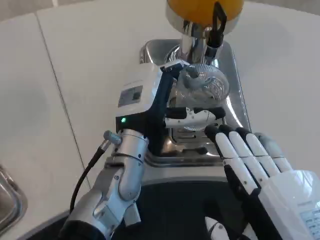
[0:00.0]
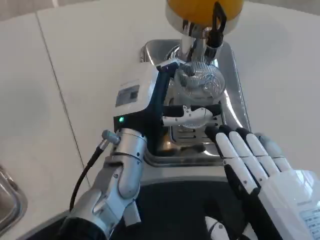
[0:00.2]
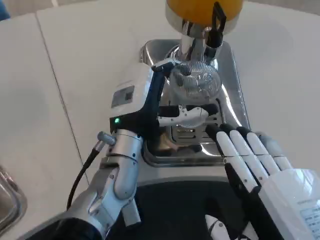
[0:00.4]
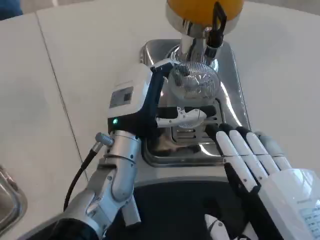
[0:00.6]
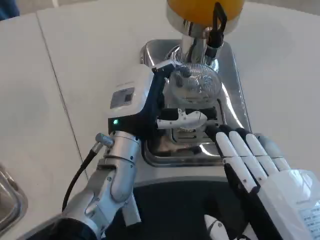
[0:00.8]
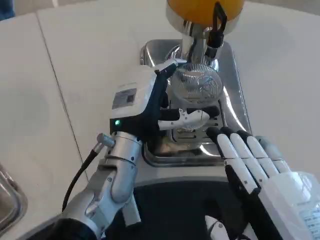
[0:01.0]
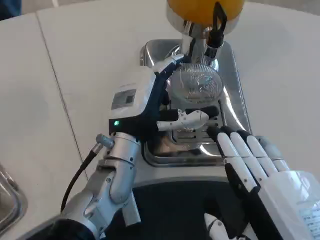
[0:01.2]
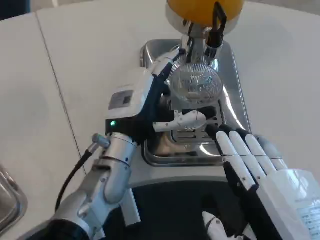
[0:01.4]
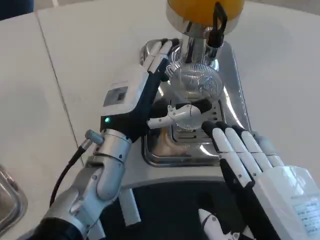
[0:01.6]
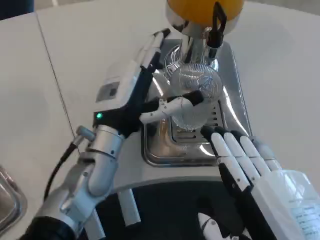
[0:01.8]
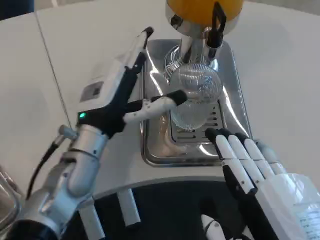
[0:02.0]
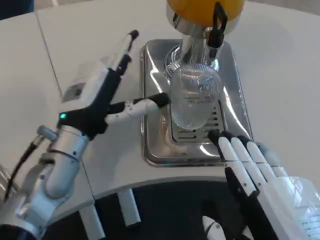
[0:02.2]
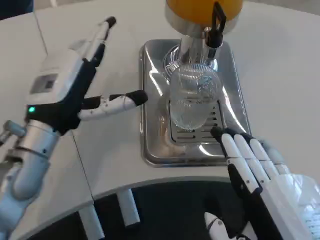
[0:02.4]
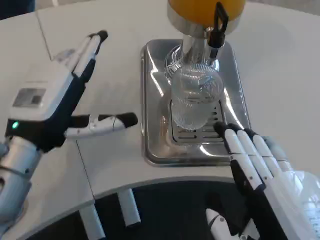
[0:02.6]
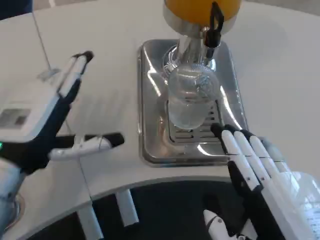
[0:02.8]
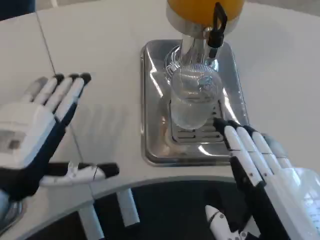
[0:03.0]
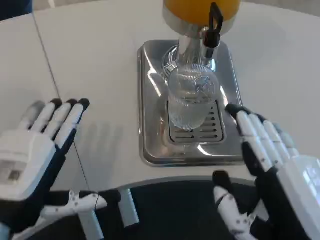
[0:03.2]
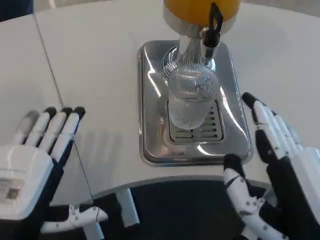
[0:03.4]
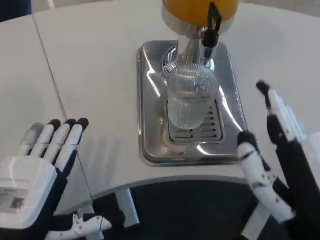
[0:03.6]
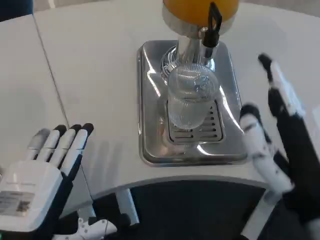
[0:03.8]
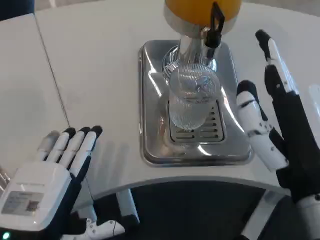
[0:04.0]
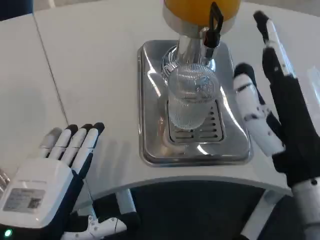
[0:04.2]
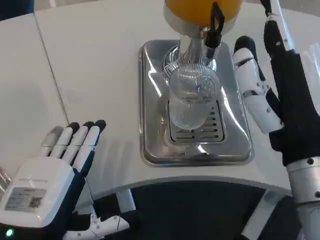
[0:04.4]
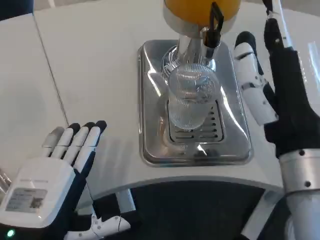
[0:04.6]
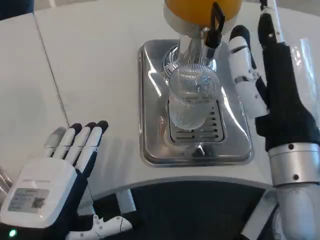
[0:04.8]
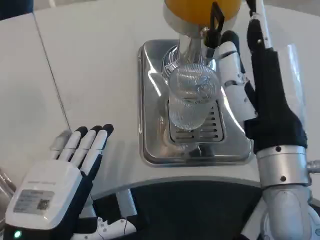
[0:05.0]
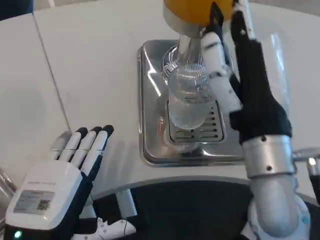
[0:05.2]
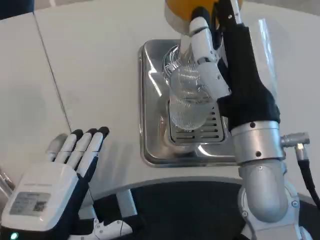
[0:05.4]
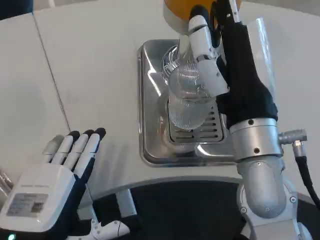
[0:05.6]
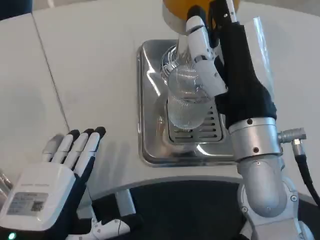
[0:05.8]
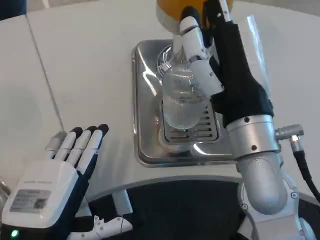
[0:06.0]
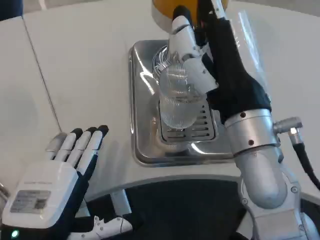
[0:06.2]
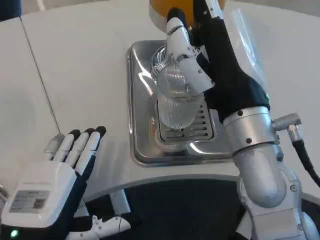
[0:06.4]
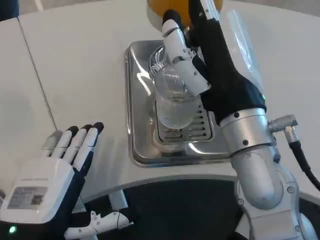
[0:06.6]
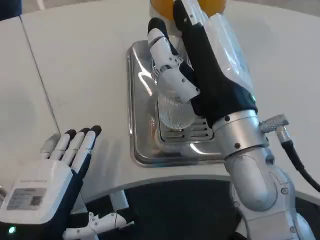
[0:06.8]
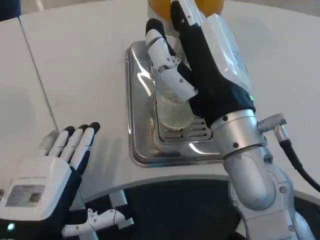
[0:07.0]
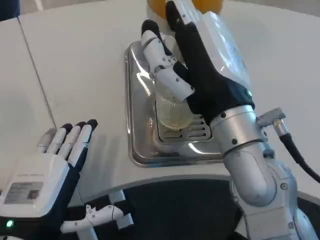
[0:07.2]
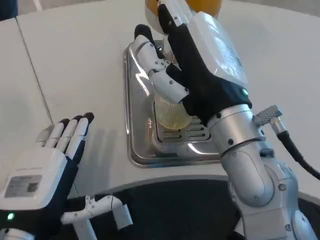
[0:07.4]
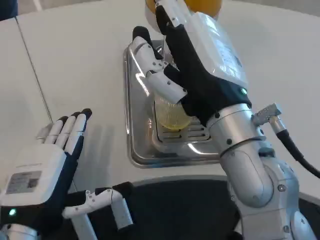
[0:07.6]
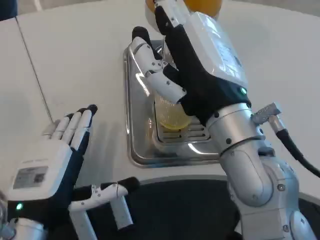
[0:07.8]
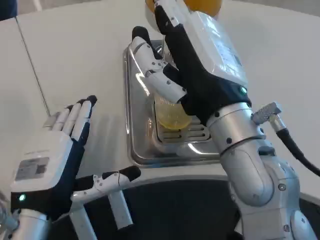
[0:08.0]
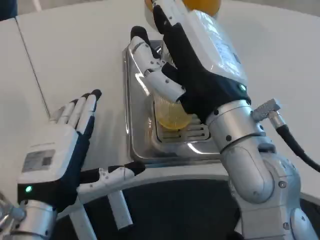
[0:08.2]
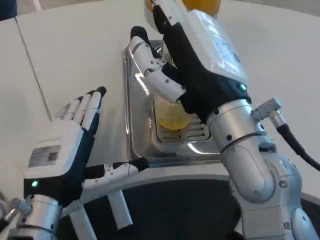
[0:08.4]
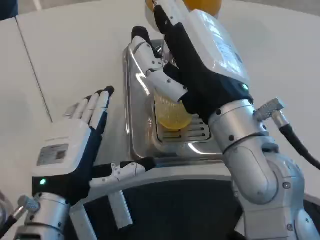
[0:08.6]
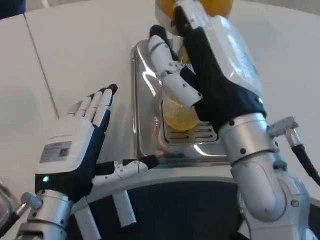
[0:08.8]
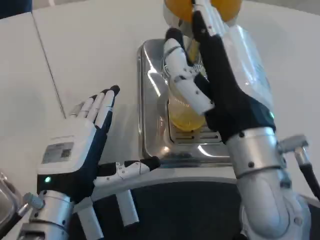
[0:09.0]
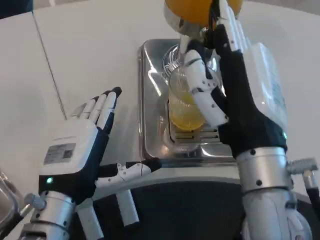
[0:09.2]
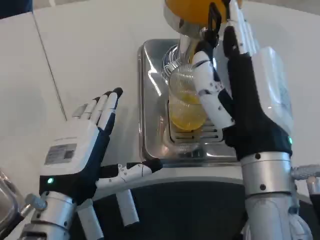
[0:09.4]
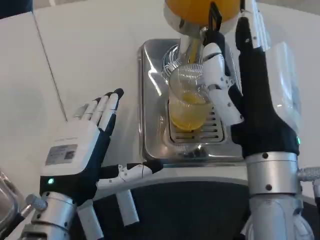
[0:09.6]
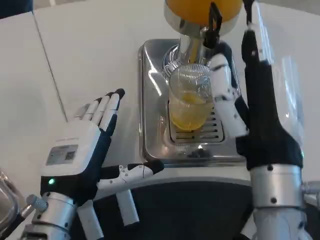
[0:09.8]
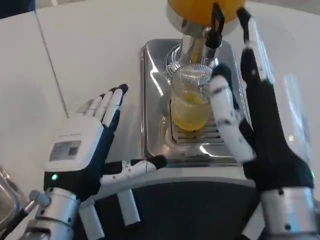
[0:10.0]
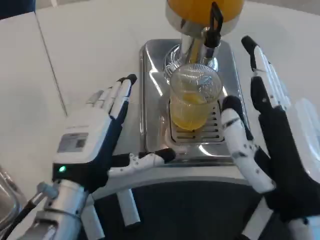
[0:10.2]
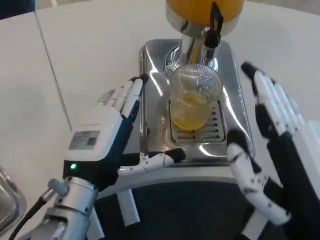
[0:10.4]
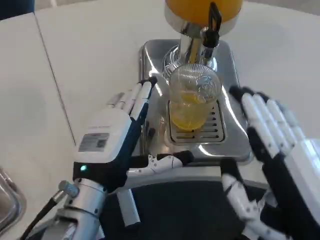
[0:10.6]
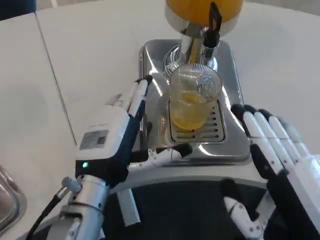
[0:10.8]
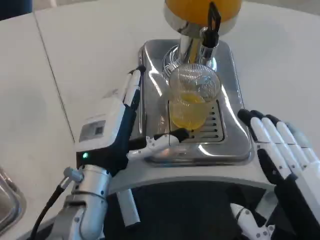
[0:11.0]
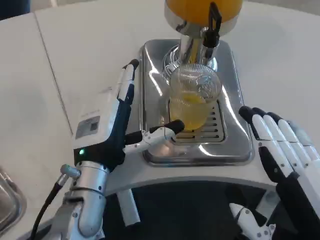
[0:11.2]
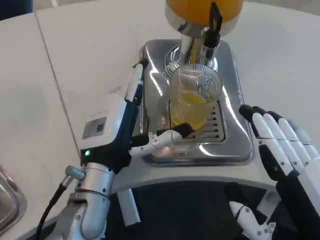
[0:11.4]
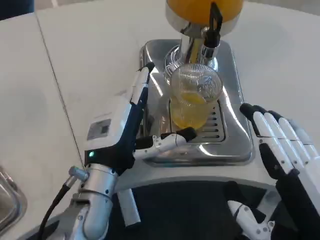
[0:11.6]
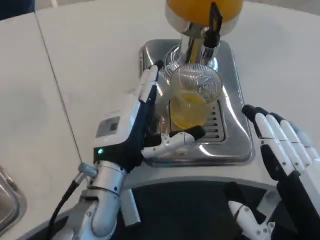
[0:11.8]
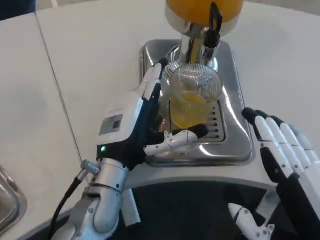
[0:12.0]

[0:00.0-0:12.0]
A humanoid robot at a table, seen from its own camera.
Task of the whole recording: Grasp the cup under the faucet to collect the drink, then remove the cup.
0:01.6 to 0:03.0: The left hand moves backward and to the left, some 20 cm.
0:03.0 to 0:04.4: The left hand ends up approximately 5 cm from where it was, while the right hand goes approximately 10 cm forward and upward.
0:04.4 to 0:06.0: The right hand is displaced forward by roughly 5 cm.
0:07.6 to 0:09.0: The left hand ends up some 5 cm from where it was.
0:09.0 to 0:10.4: The right hand travels backward, to the right and downward by roughly 10 cm.
0:10.4 to 0:12.0: The left hand shifts by some 5 cm.

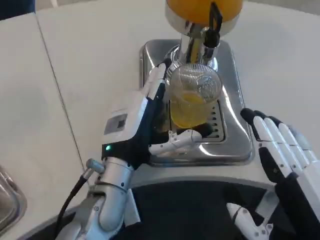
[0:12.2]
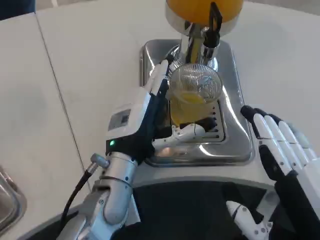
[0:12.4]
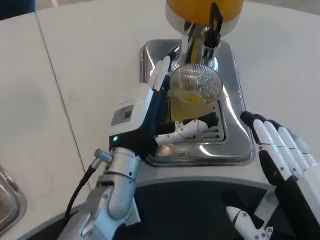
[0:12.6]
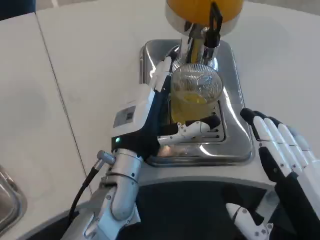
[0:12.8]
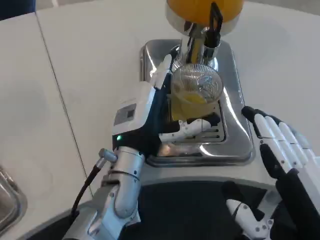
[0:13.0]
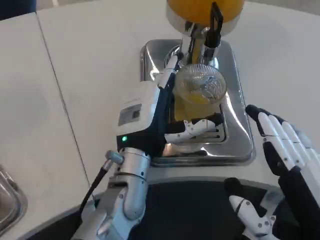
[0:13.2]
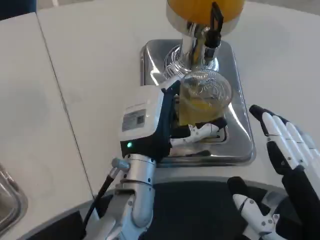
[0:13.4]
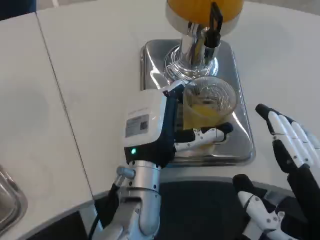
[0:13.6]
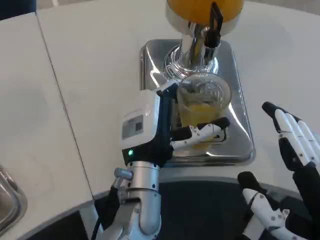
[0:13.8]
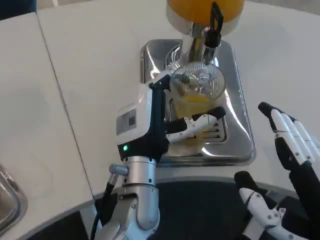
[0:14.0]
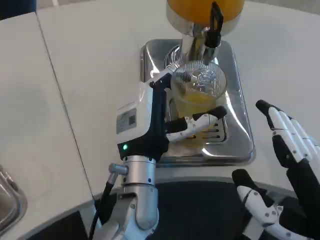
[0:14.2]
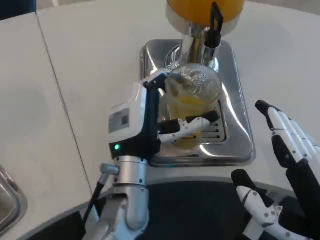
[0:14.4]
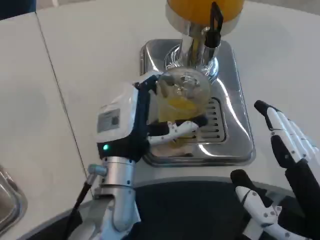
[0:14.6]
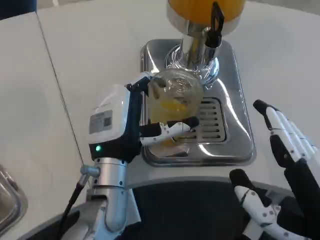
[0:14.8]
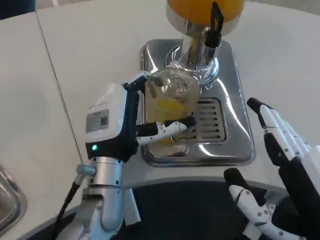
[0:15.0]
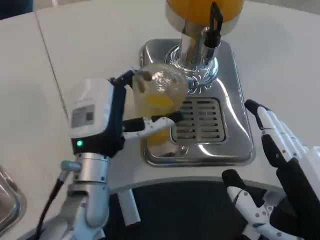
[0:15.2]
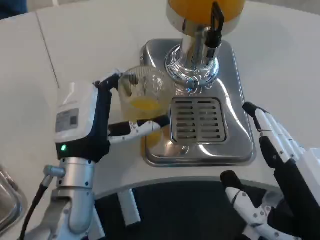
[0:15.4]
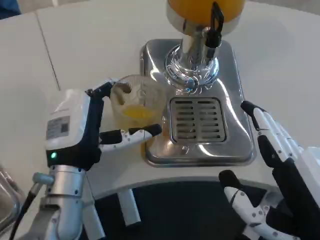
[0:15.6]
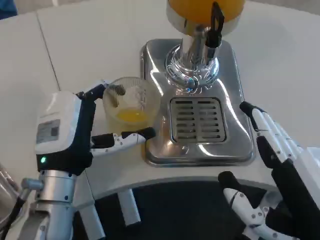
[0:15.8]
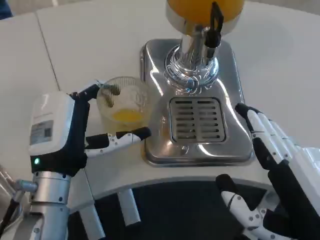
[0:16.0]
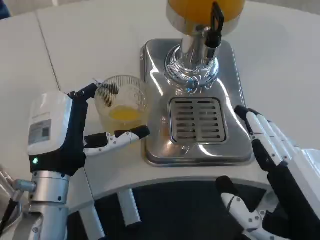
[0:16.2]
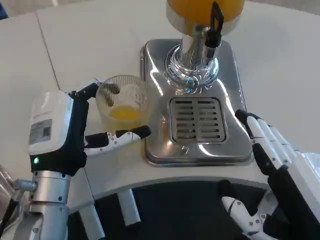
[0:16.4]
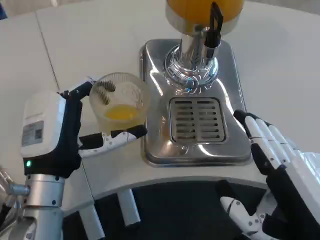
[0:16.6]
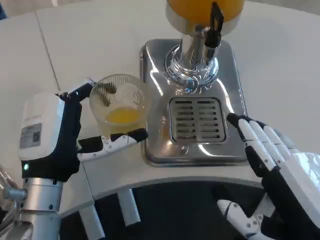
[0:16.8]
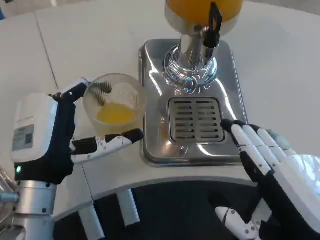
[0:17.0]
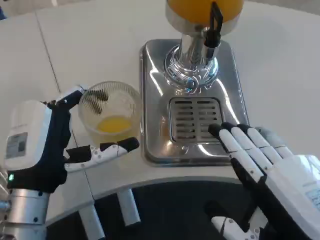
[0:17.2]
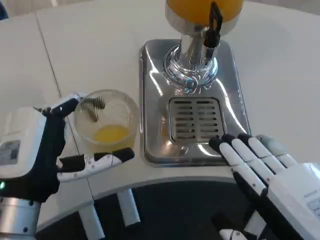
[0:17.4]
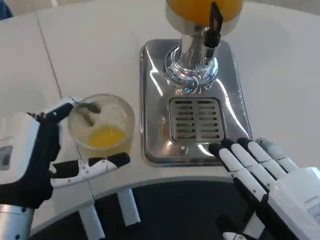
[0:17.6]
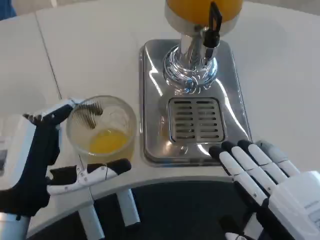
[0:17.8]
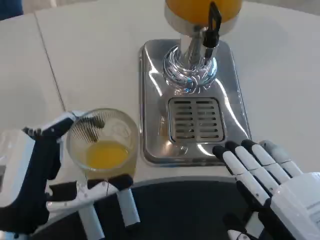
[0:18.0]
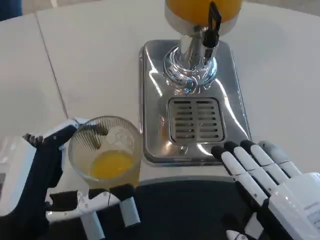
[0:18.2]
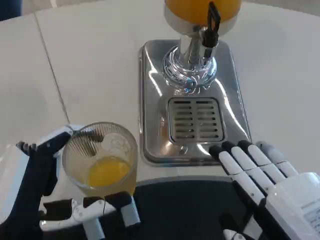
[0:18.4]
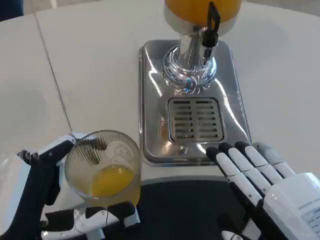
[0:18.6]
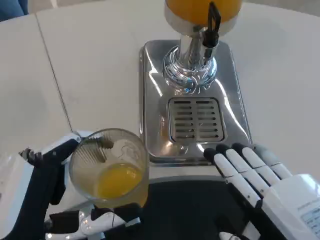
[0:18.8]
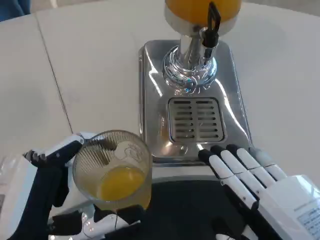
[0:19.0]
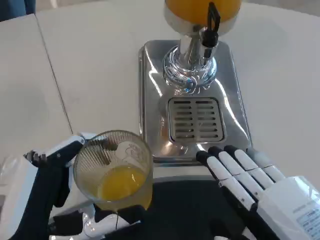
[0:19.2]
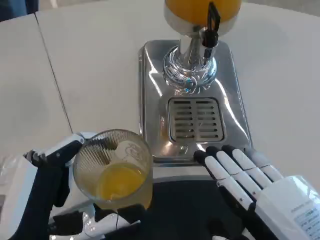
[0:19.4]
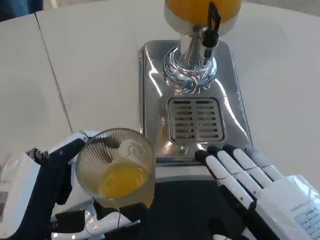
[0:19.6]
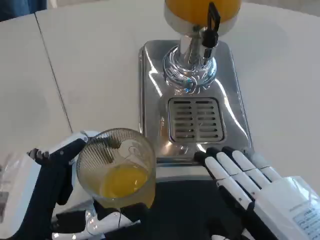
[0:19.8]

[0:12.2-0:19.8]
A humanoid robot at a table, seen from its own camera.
Task of the whole recording: Grasp the cup under the faucet to collect the drink, then remove the cup.
0:12.2 to 0:13.8: The left hand heads to the right, covering about 5 cm.
0:13.8 to 0:15.2: The left hand shifts roughly 10 cm to the left.
0:15.2 to 0:16.8: The left hand is displaced to the left by about 5 cm.
0:16.8 to 0:18.2: The left hand goes about 10 cm backward.
0:18.2 to 0:19.8: The hands make only small movements.
